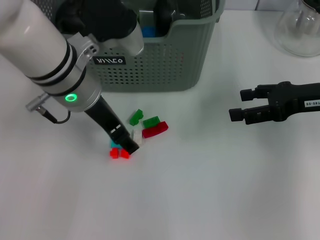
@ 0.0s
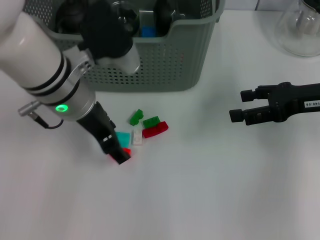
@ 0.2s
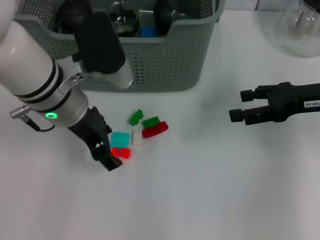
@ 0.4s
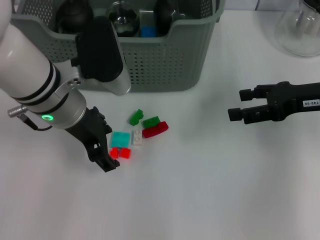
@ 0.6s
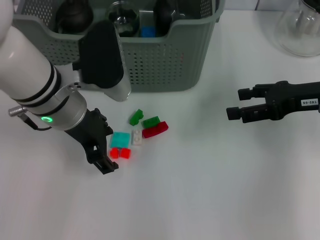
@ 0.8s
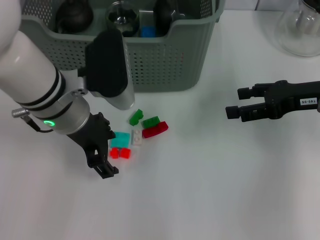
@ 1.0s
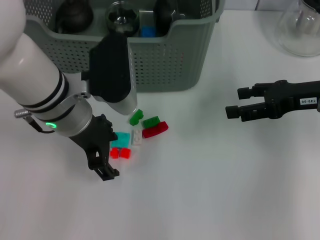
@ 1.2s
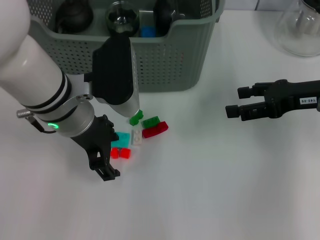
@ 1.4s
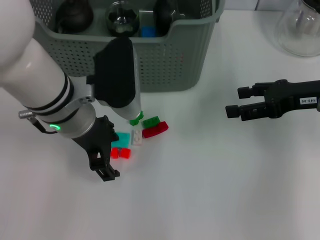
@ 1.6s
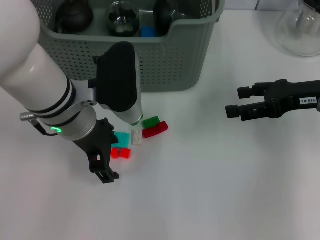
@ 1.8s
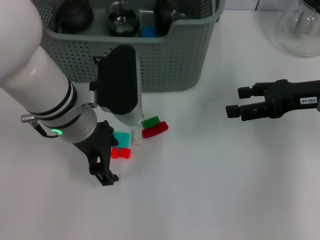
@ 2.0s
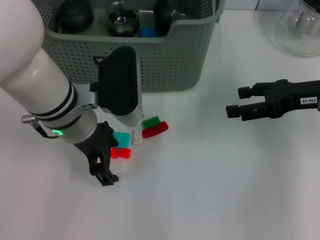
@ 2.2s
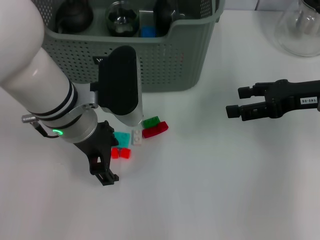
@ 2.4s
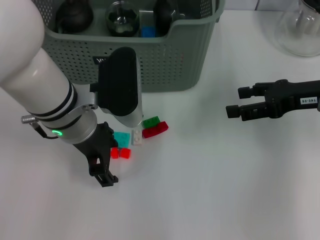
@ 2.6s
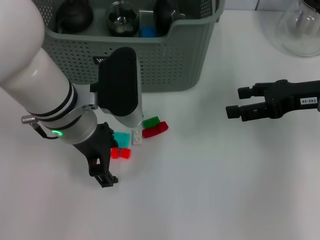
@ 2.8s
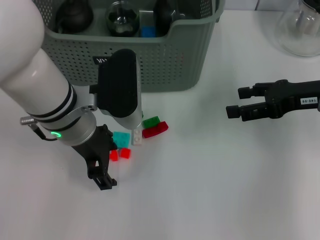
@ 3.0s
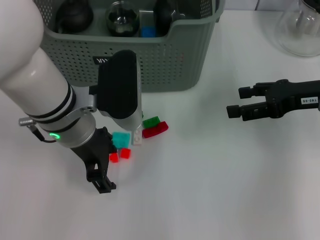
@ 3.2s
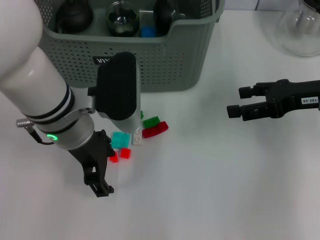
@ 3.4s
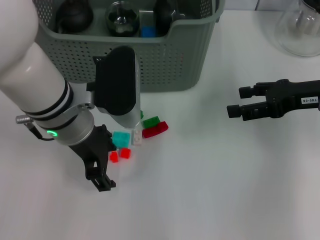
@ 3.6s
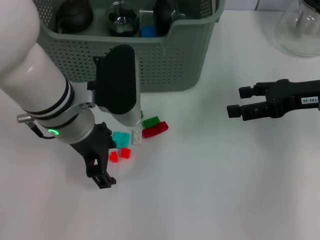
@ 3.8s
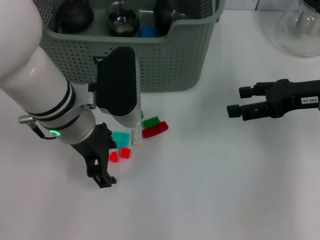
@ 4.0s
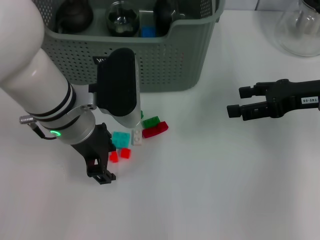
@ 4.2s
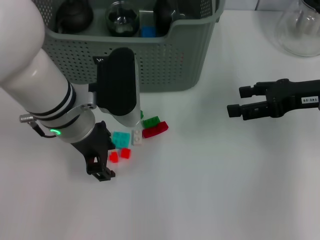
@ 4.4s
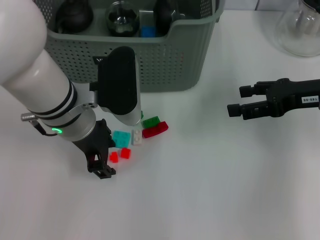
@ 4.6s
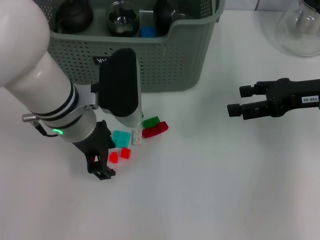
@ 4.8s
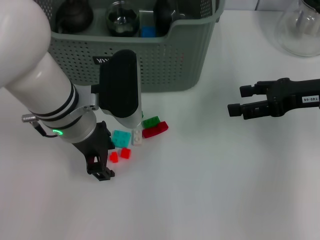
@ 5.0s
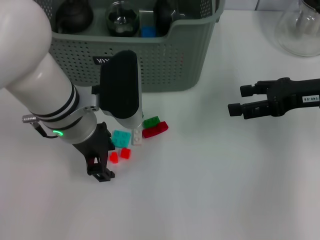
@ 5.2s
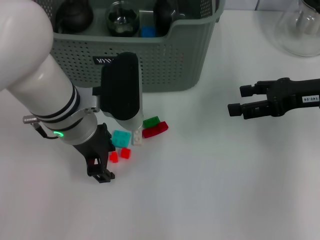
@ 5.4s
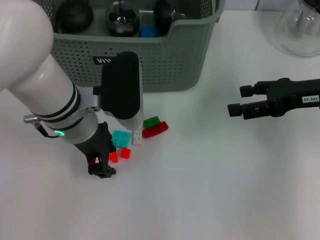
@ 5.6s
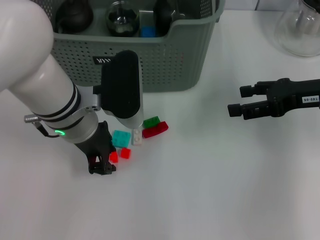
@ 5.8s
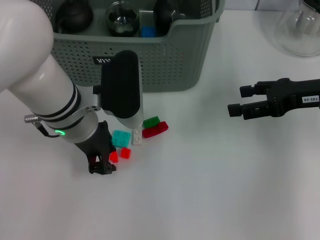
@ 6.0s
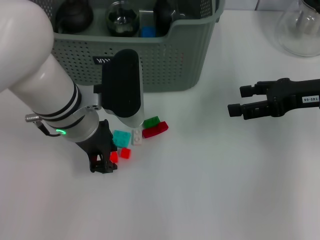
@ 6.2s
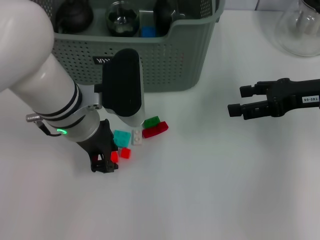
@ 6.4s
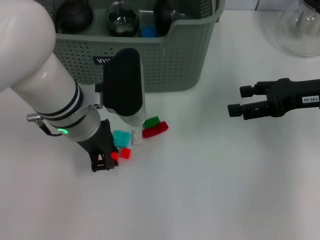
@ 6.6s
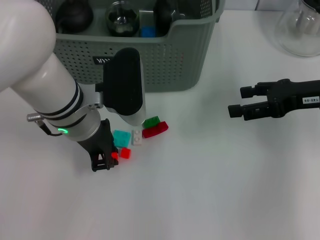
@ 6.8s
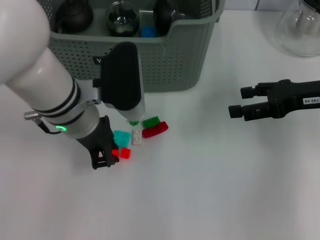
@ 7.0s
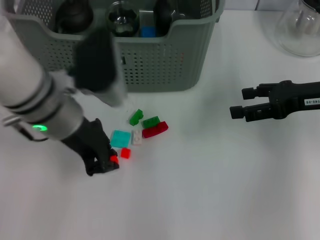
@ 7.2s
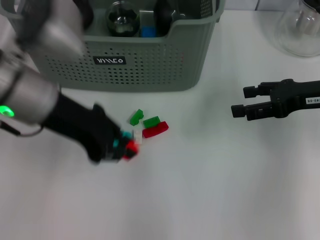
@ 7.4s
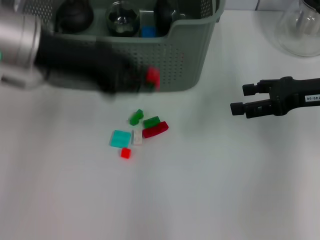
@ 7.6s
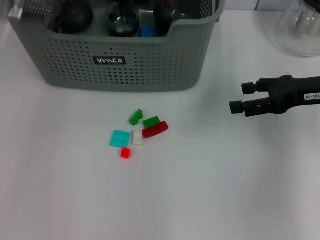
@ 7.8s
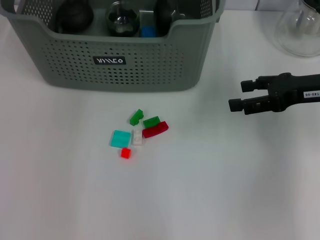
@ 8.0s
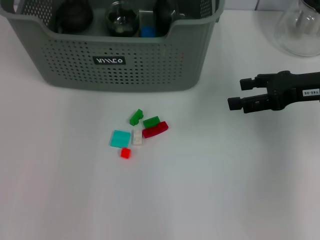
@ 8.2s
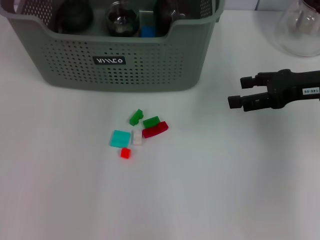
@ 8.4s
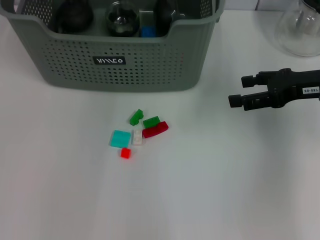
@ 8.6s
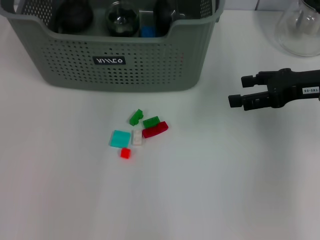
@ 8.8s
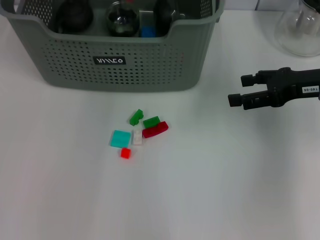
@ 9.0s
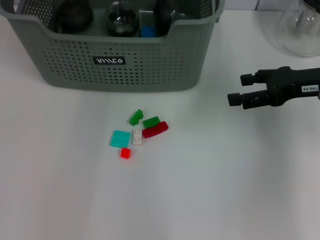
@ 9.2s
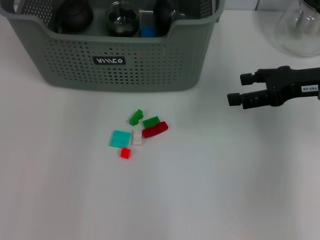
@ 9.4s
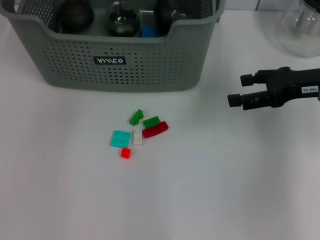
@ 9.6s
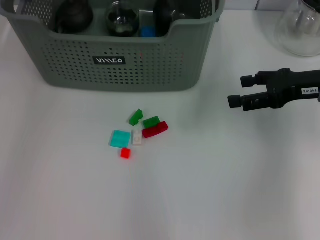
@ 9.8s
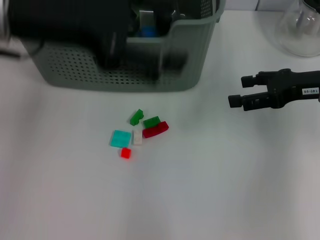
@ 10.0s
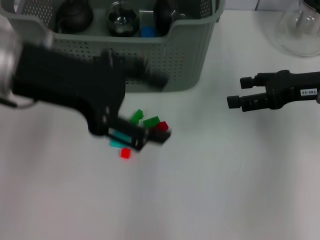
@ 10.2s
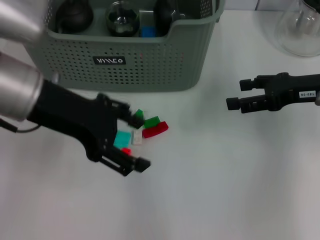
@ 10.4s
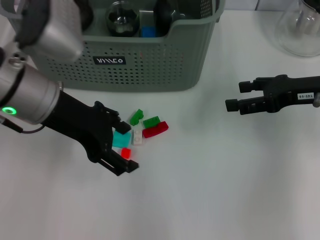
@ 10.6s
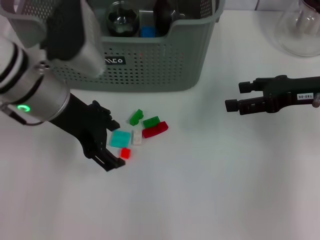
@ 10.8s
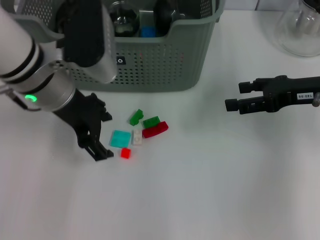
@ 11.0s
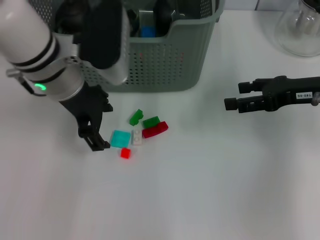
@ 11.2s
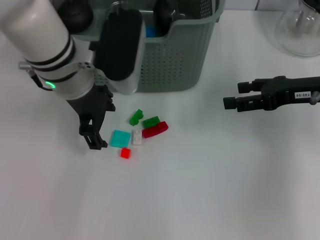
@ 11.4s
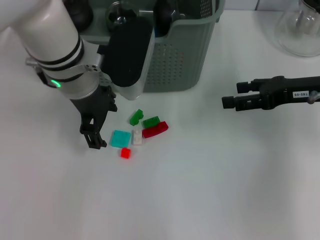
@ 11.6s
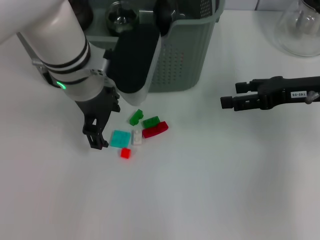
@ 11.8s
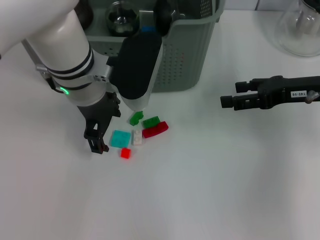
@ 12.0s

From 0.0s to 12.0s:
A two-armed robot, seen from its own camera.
Task of the whole recording: pick up the teacup on the table and place it into the storage bin, pick up the block on the table and place it into the storage bin.
Step, from 0.0s to 6.8s: Grasp the orange block with left gripper.
Step, from 7.0s to 9.6s: Place the orange block in the storage box with left gripper.
From 1.6s to 3.0s: Neither gripper changes place.
From 3.0s to 4.4s: The two grippers keep their place.
From 4.4s to 6.0s: The left gripper closes.
From 6.0s to 7.6s: The left gripper travels upward and to the left by roughly 15 cm.
From 7.6s to 9.0s: The left gripper heads forward and to the right, covering some 15 cm.
From 9.0s to 10.4s: The left gripper shifts approximately 20 cm backward, and opens its fingers.
From 10.4s to 12.0s: The left gripper is displaced to the right, forward and downward by about 10 cm.

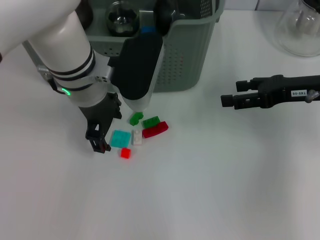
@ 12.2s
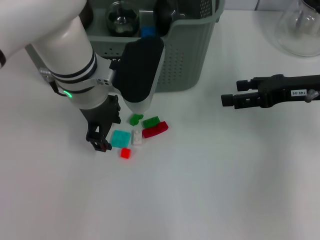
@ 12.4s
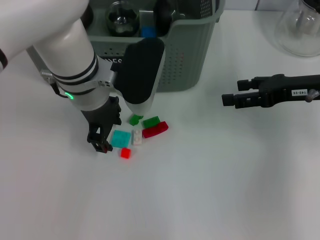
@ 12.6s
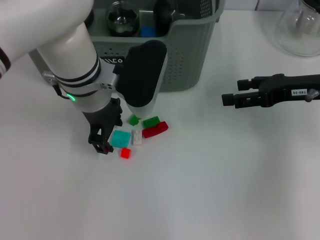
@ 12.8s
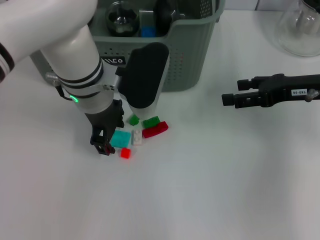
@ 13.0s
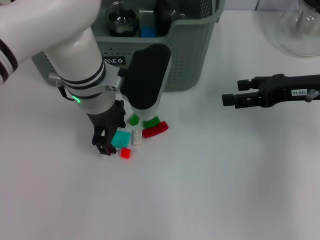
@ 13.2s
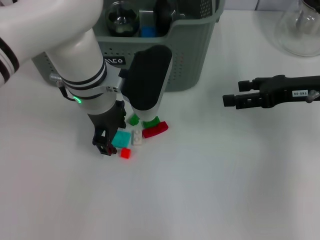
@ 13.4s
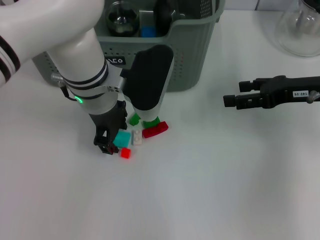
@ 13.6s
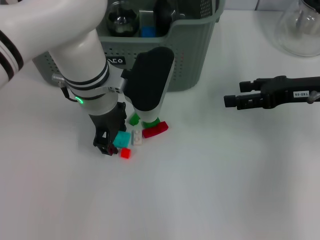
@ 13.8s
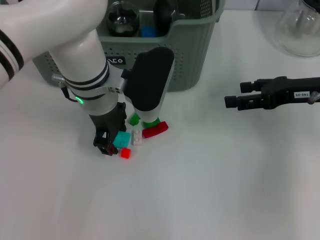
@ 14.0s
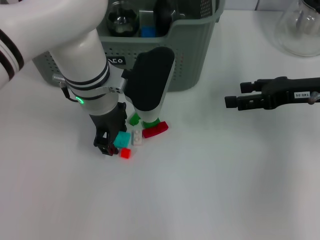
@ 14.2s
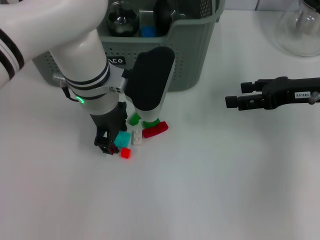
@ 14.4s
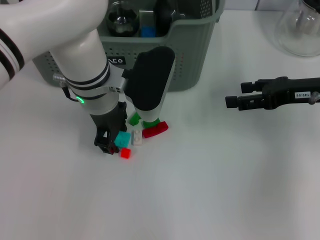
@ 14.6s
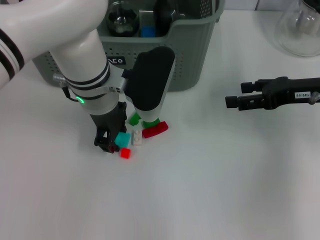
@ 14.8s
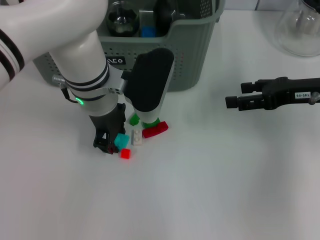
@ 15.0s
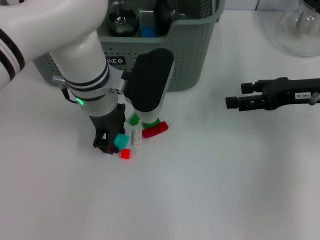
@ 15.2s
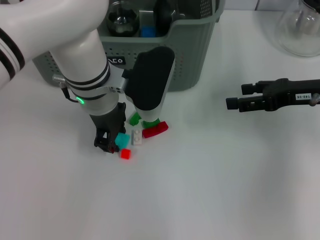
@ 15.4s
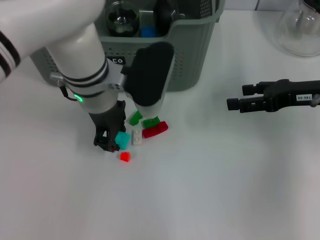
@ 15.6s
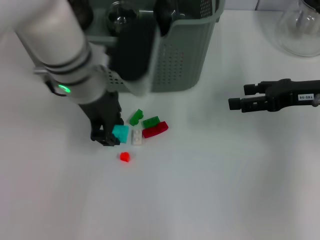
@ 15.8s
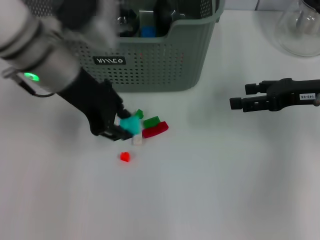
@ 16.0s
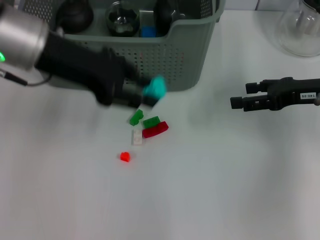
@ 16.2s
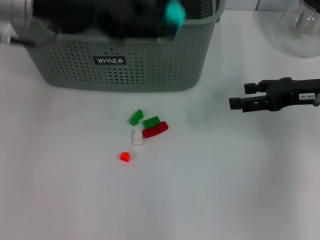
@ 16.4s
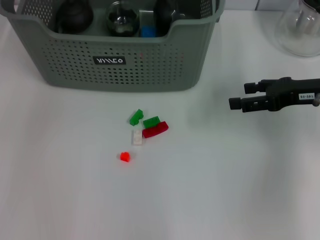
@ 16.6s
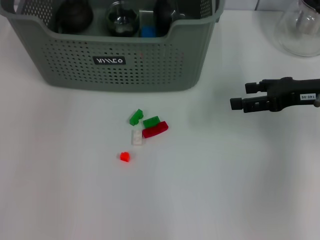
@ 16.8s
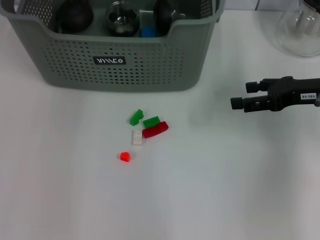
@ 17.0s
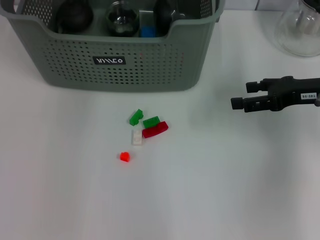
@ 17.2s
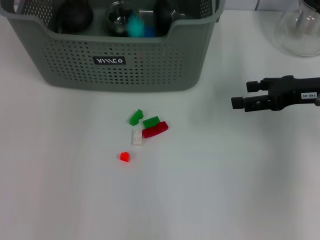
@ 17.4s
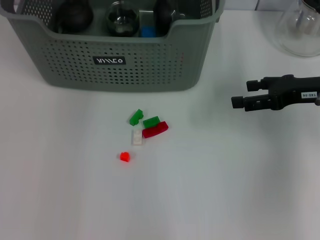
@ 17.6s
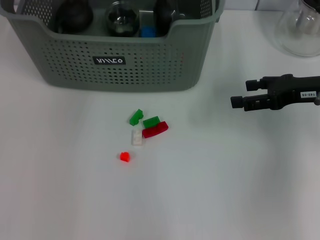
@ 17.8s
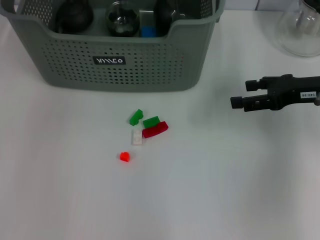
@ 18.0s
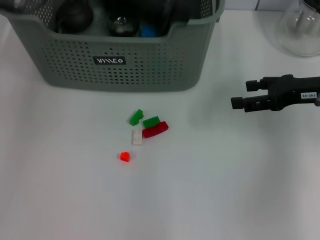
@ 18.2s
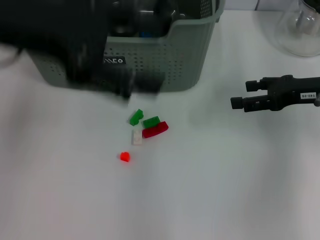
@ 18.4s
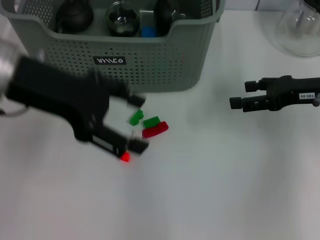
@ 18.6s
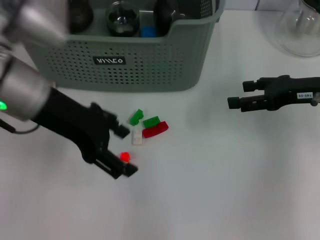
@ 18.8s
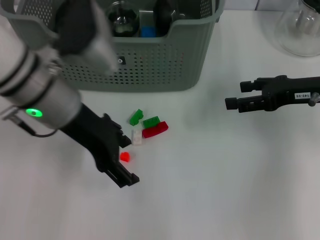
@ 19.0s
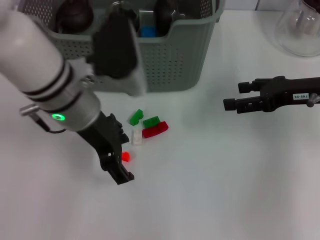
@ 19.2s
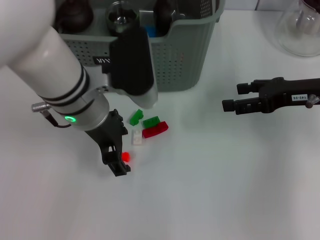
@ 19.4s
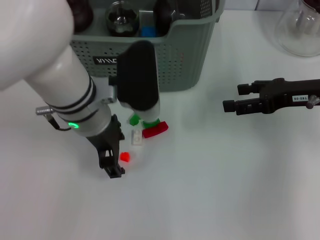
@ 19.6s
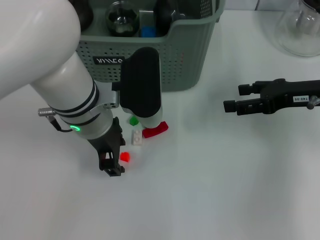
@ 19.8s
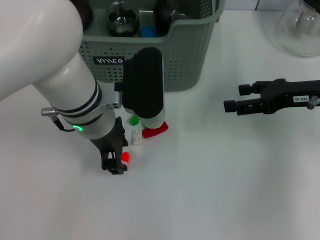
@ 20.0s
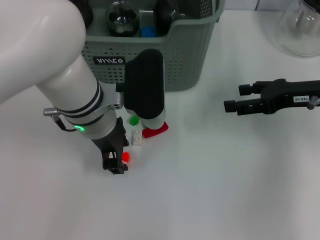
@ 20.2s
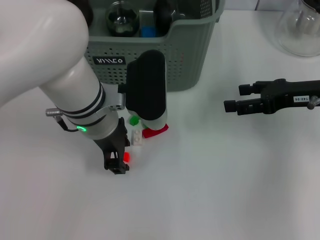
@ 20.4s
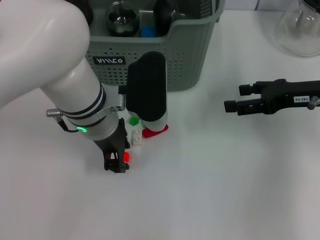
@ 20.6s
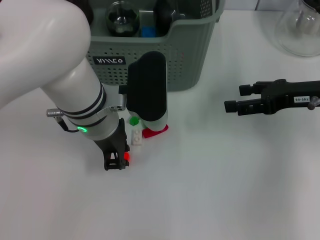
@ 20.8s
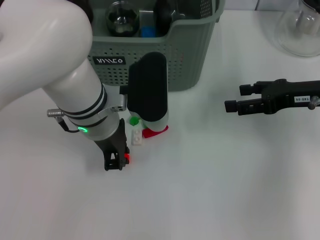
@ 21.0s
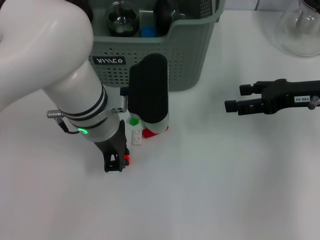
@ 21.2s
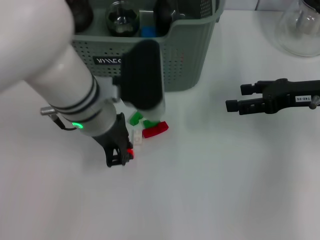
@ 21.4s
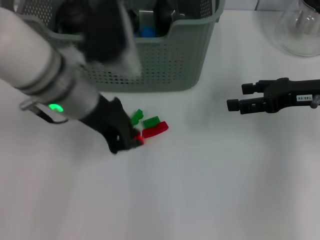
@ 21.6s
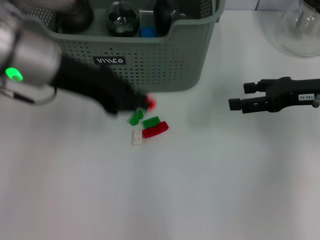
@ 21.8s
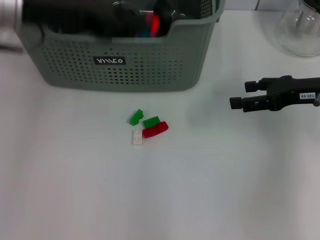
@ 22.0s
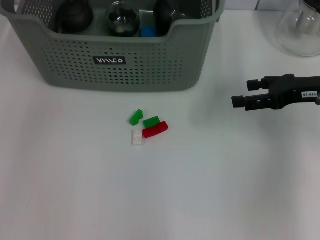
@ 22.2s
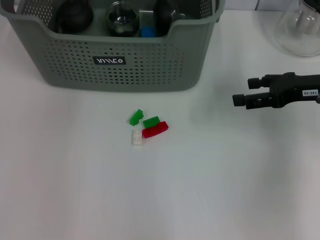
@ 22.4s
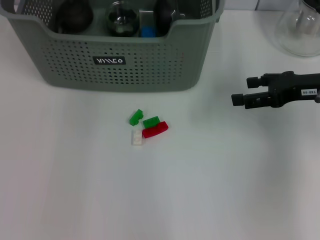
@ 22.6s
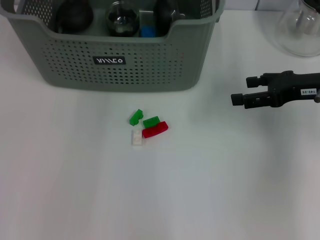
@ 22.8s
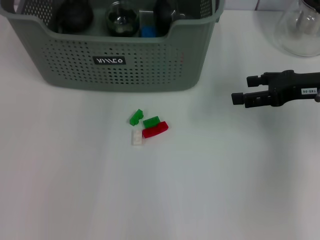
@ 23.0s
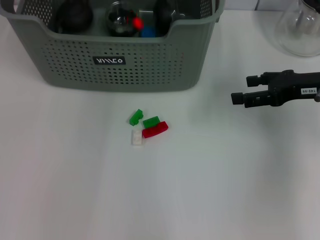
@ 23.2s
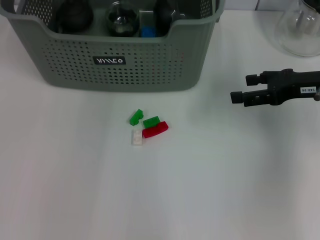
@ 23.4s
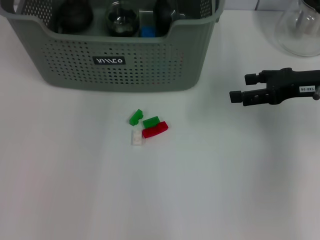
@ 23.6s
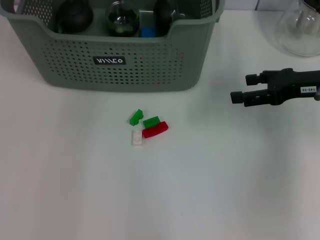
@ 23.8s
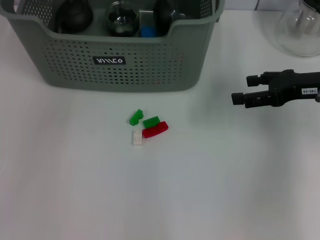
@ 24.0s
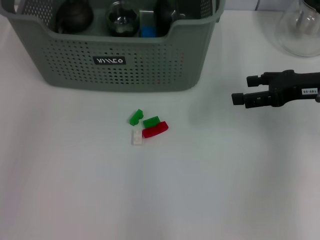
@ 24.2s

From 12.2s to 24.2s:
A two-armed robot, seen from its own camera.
Task of the whole recording: pick up the teacup on the table and place it into the storage bin, pick up the block on the table and place it into the storage bin.
Step, from 12.2s to 15.0s: Grasp the light blue block with left gripper.
Step, from 15.4s to 17.4s: Place the light blue block in the storage box with left gripper.
Step, from 17.6s to 21.2s: Grasp the orange block with left gripper.
Step, from 21.4s to 23.2s: Place the orange block in the storage box with left gripper.
From 12.2s to 13.8s: The grippers stay close to where they were, moving slightly.
From 13.8s to 15.2s: The two grippers keep their place.
From 15.2s to 16.6s: The left gripper shifts roughly 20 cm upward and to the left.
From 16.6s to 18.2s: The left gripper heads backward, covering some 5 cm, and opens.
From 18.2s to 19.8s: The left gripper is displaced downward and to the right by approximately 20 cm.
From 19.8s to 21.2s: The left gripper closes up.
From 21.2s to 22.6s: The left gripper heads upward and forward, covering some 20 cm.
